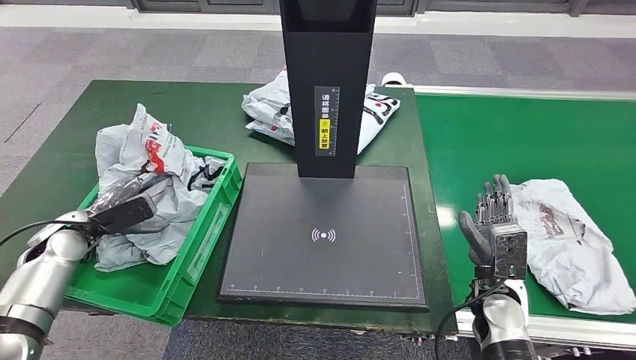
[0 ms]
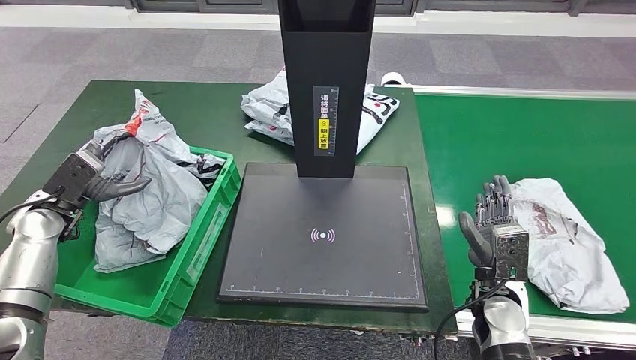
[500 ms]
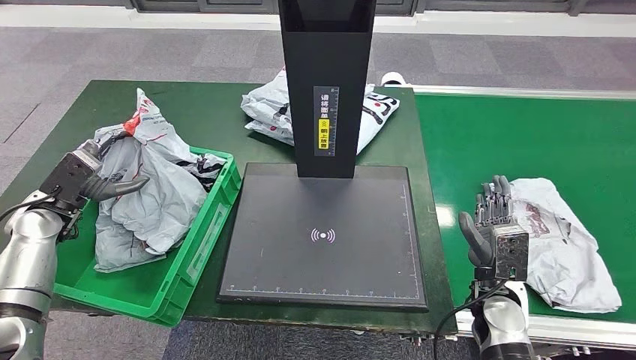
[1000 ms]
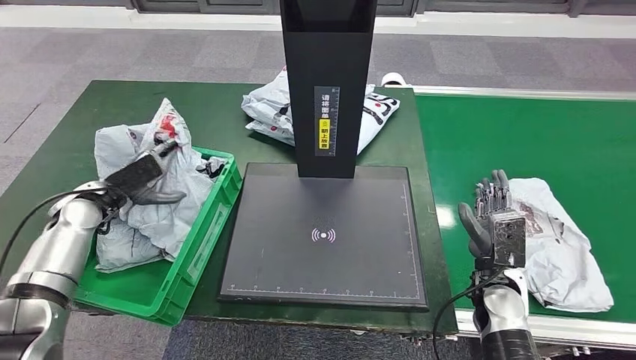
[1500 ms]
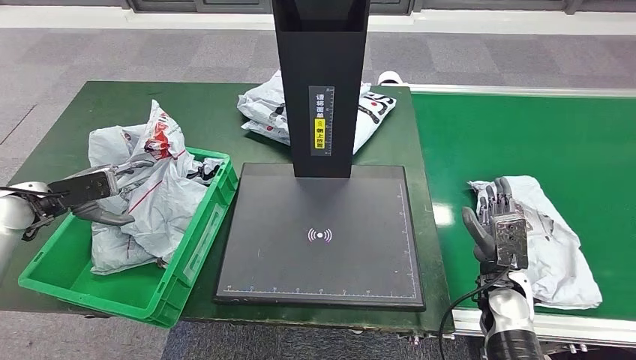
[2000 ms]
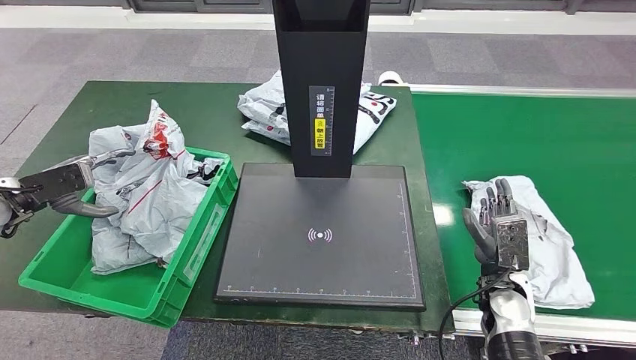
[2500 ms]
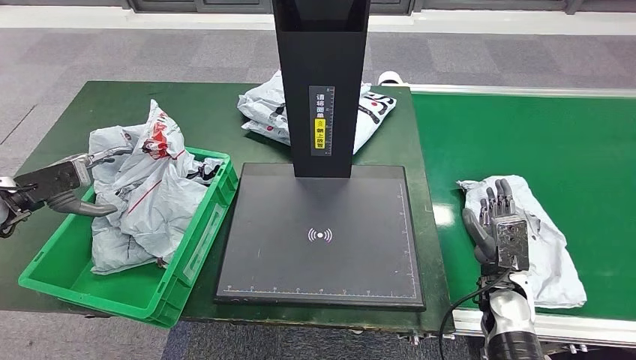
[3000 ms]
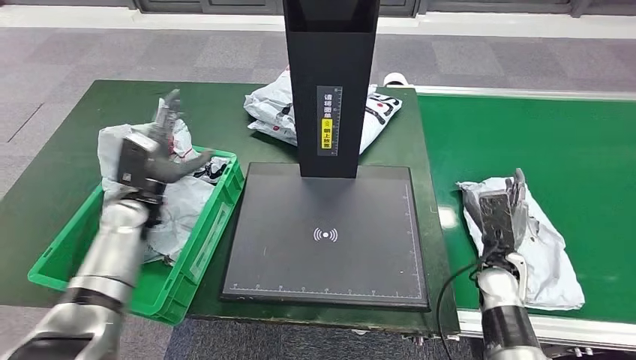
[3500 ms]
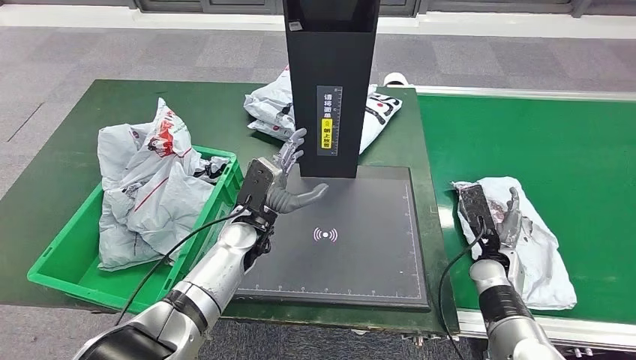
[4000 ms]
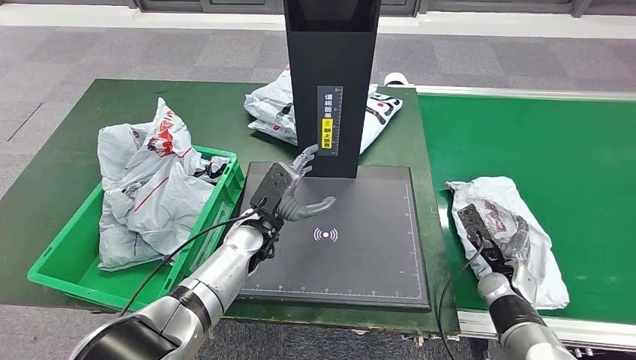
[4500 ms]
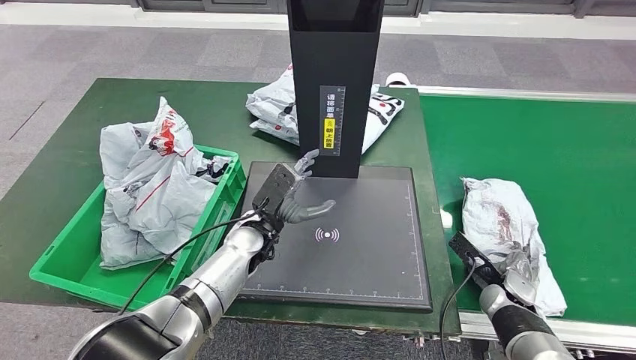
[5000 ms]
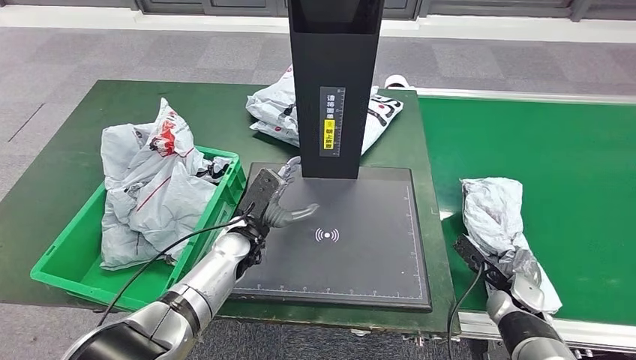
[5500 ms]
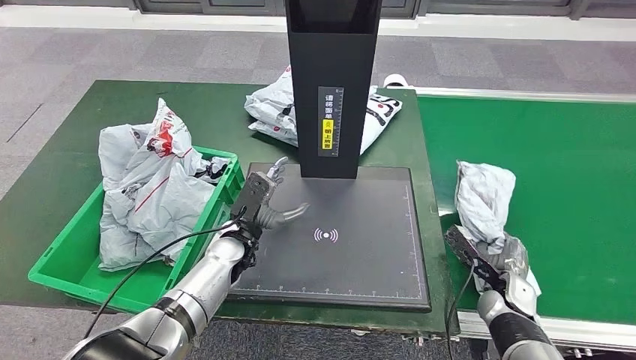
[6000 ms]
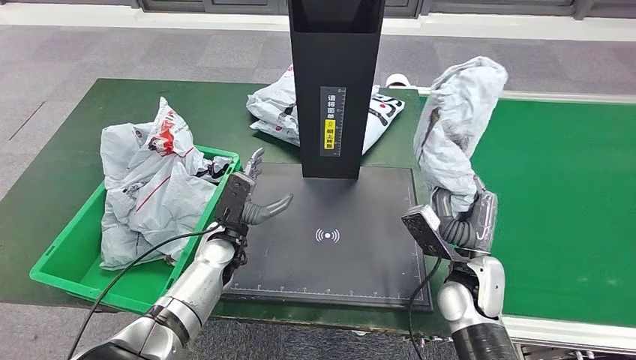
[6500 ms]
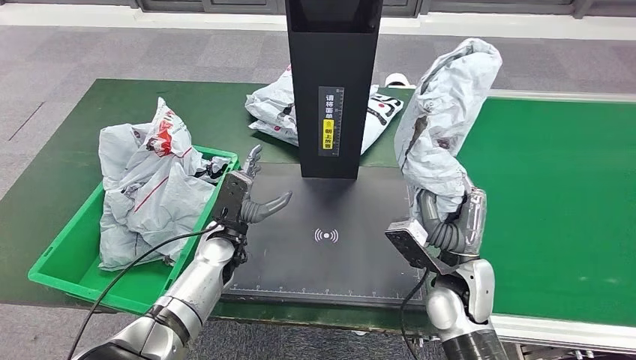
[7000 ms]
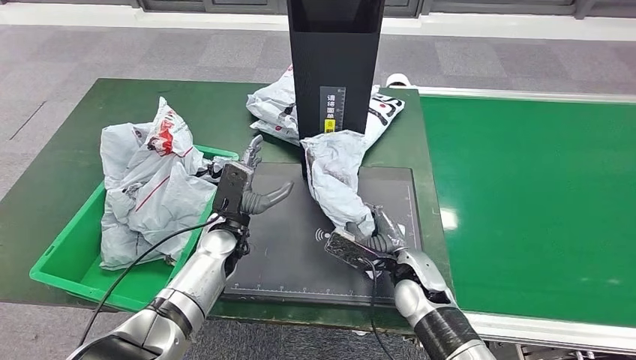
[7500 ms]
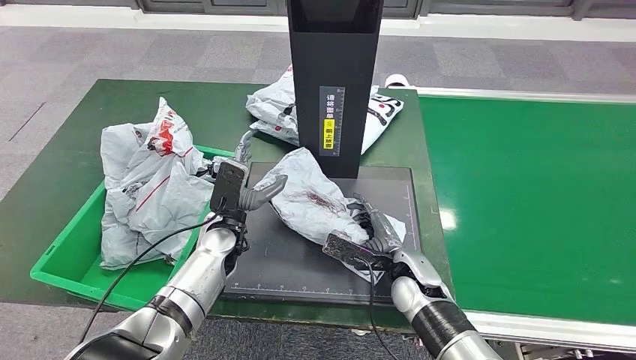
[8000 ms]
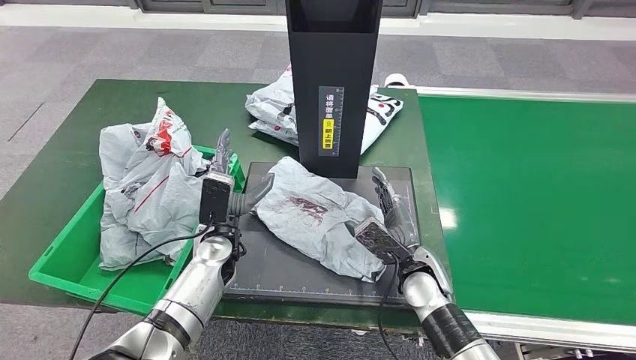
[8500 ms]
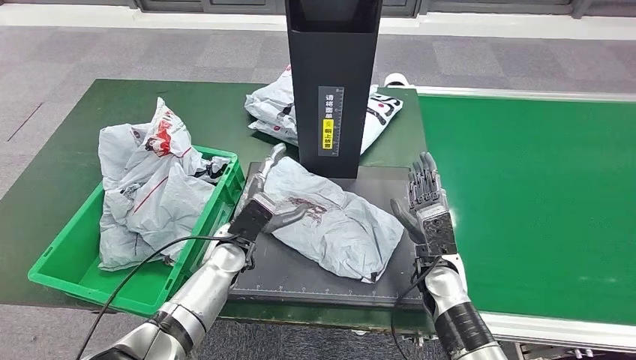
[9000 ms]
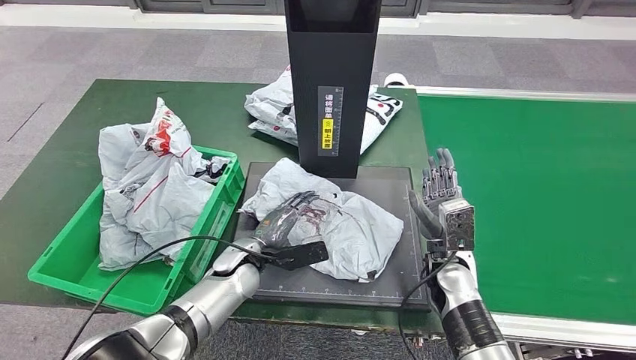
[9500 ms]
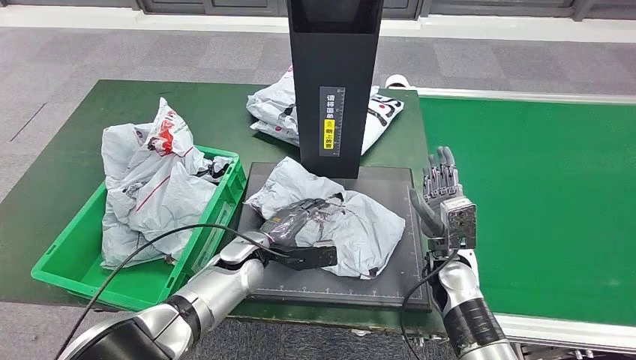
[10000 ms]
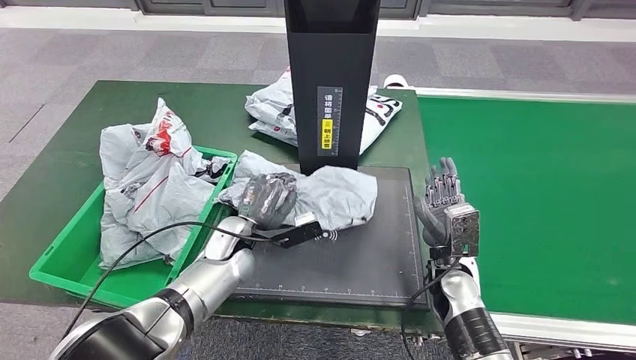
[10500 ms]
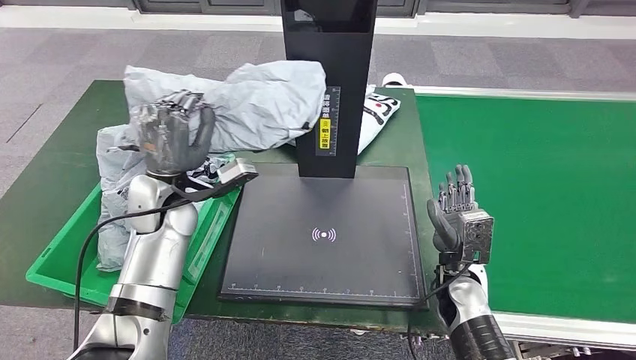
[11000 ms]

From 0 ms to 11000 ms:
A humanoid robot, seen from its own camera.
Step, from 0 ms to 1500 ms: Place the parcel into the delivery box.
Step, from 2000 ms to 6500 ms: Pick up the parcel from the conveyor belt.
Step, from 7500 ms to 9000 ms: Place the parcel onto the inbound machine.

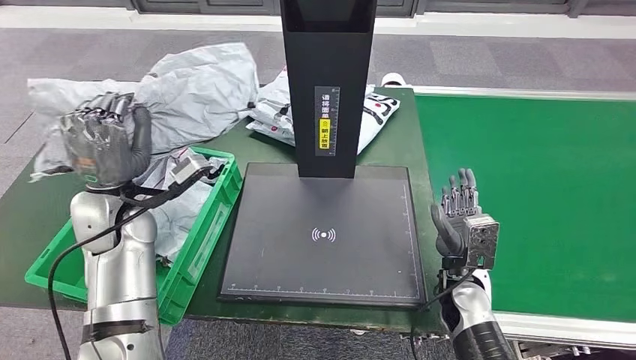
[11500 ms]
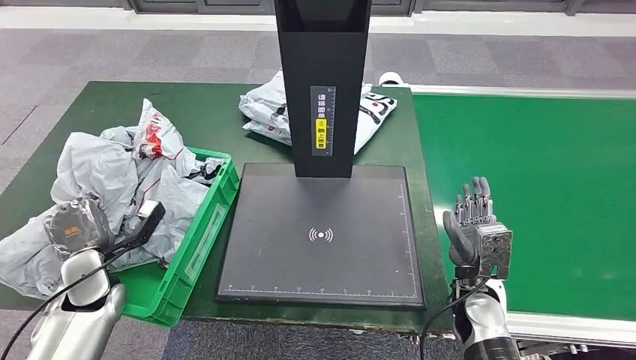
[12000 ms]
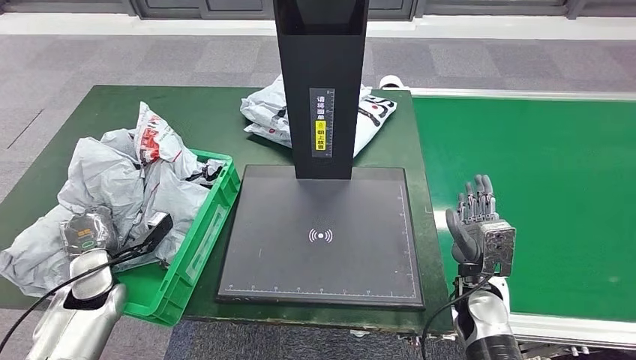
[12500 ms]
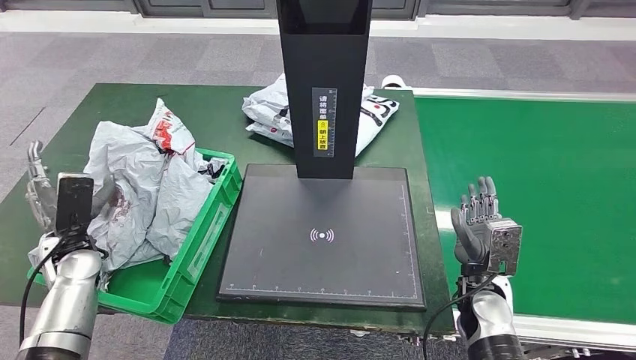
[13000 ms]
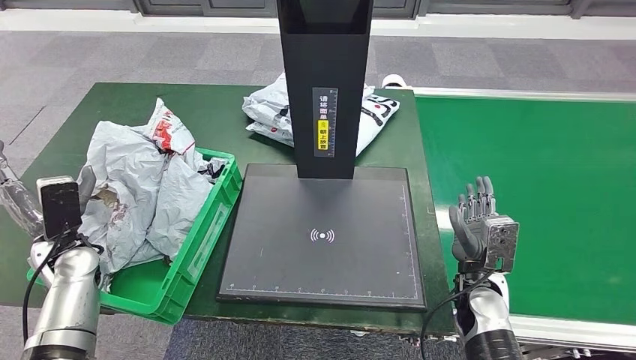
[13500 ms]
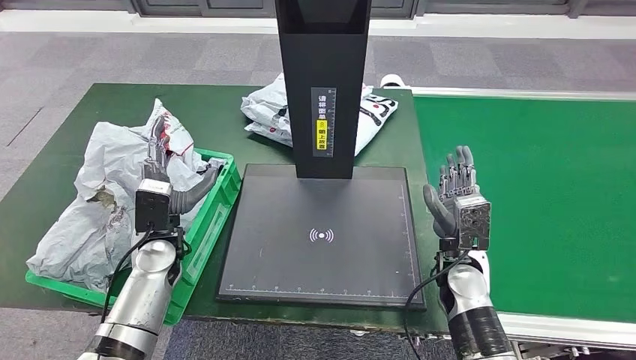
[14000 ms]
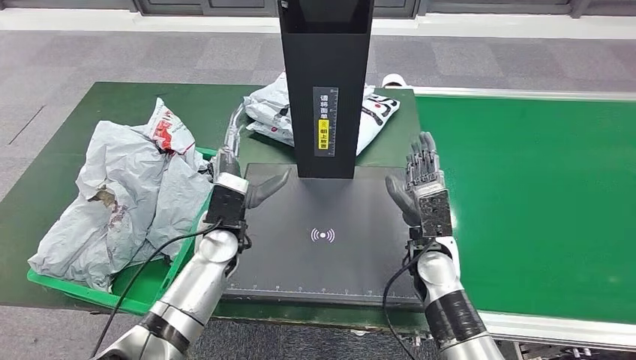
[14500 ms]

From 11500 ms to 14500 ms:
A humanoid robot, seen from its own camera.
Step, from 12000 ms to 14500 ms: Place the parcel into the delivery box.
